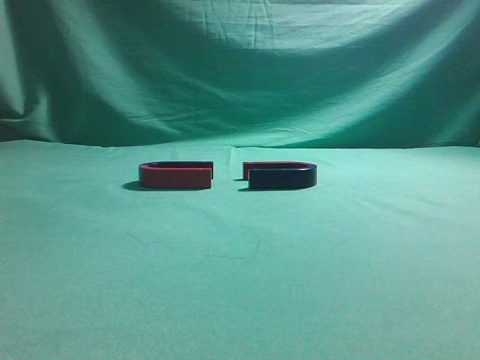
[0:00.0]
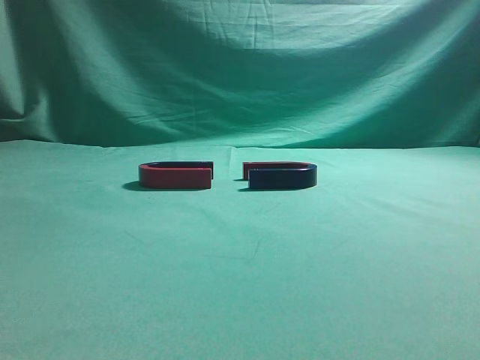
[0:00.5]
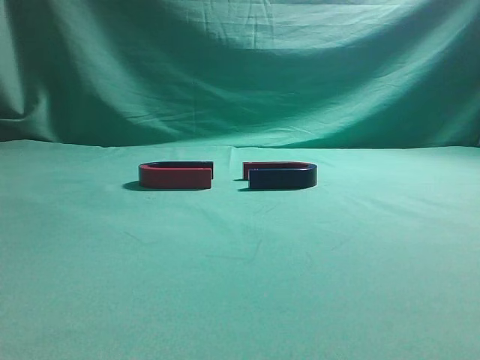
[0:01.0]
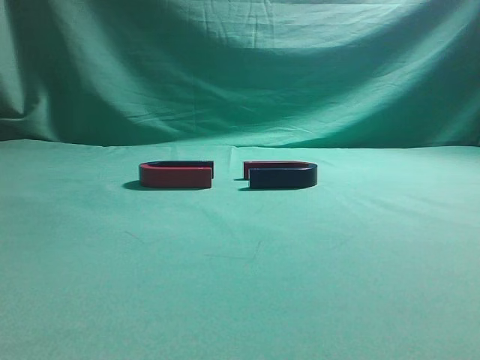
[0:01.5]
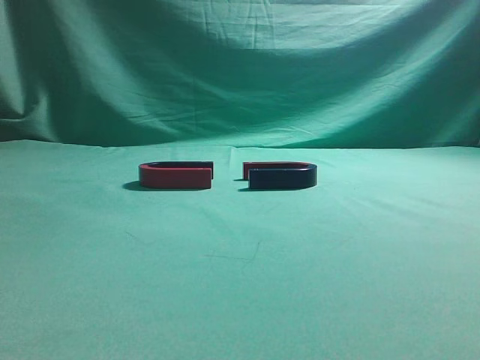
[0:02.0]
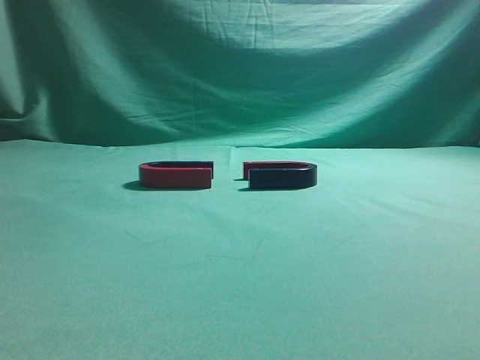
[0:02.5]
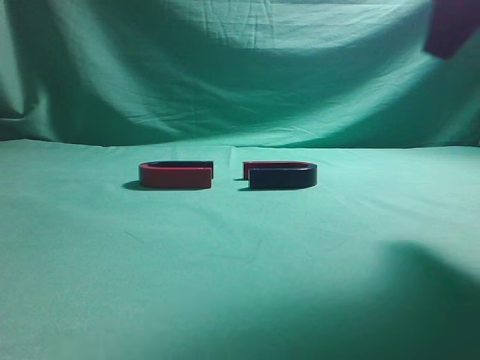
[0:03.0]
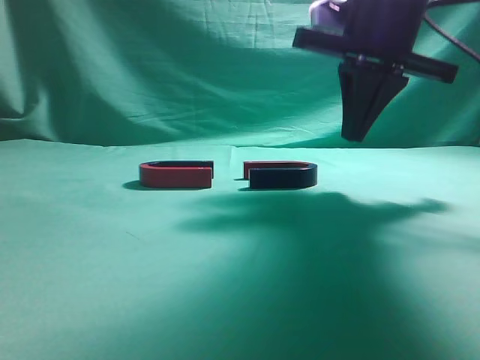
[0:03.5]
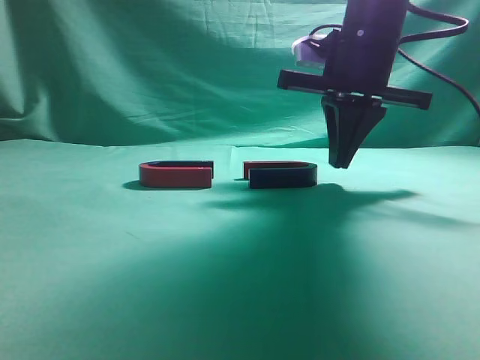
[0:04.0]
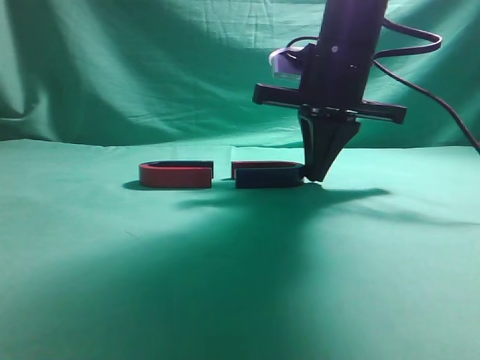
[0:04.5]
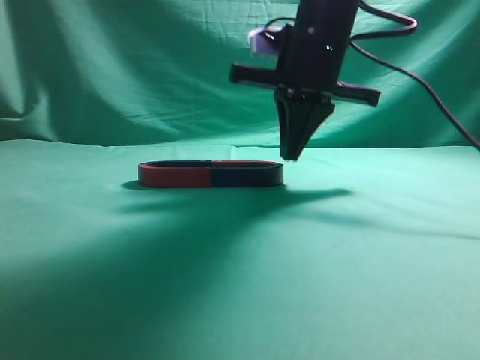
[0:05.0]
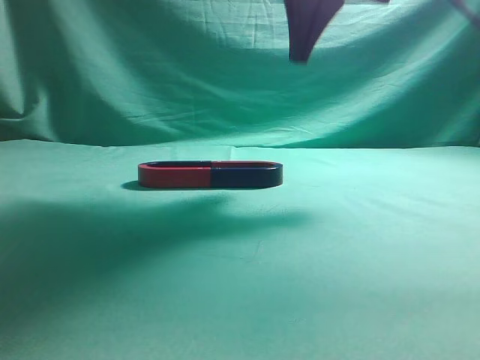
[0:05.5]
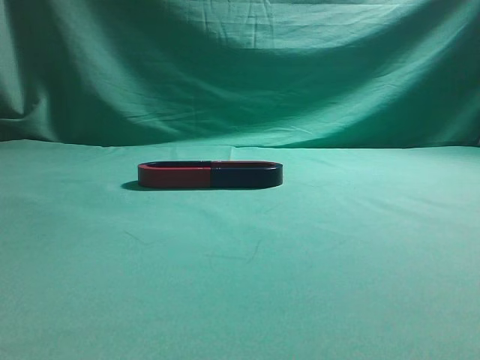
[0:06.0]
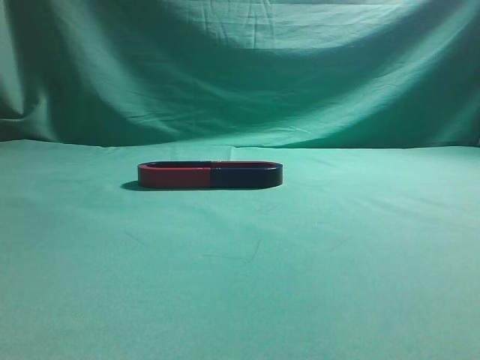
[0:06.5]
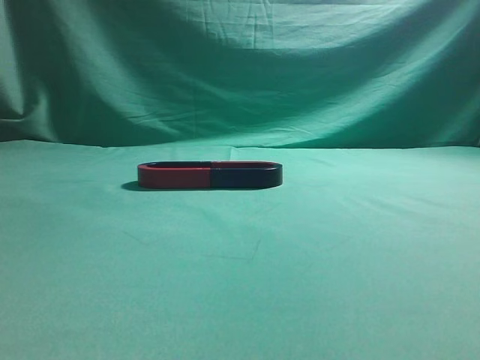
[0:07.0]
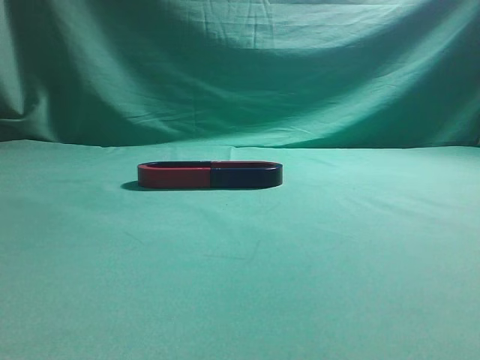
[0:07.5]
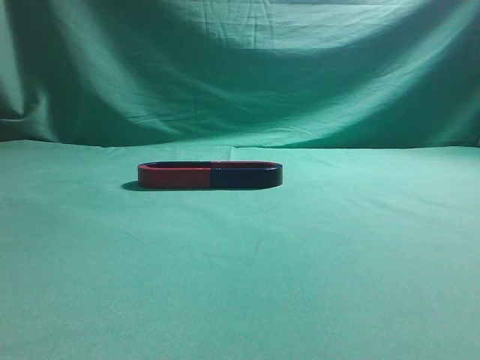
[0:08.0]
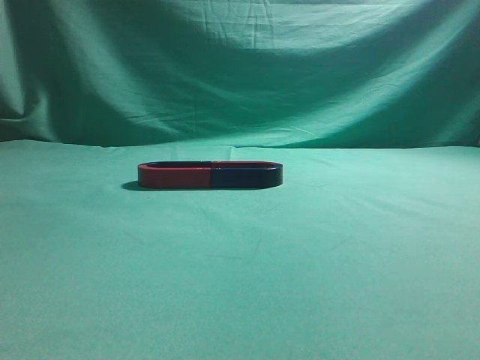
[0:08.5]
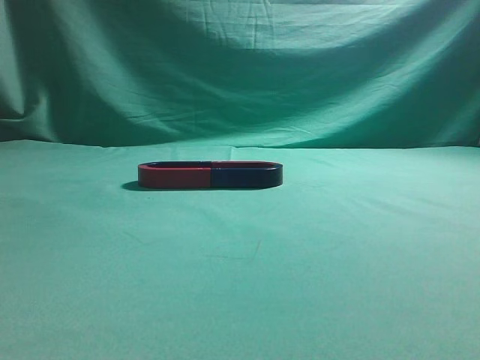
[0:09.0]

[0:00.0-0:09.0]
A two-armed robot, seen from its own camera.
Task of the whole recording: push the magnet on the table from its original position to another position.
Step, 0:00.0 to 0:05.0: Push the magnet on the right to connect the magnet on the left.
0:02.0 to 0:04.5: The right gripper goes approximately 35 cm forward and to the left.
0:04.5 to 0:07.0: The right gripper is displaced backward, upward and to the right by approximately 40 cm.
